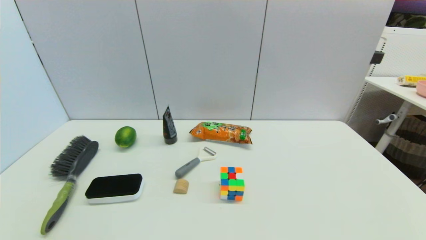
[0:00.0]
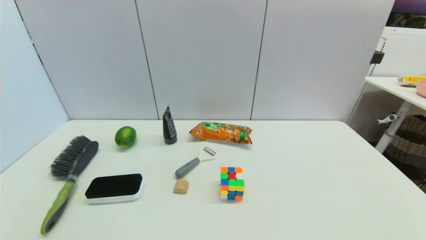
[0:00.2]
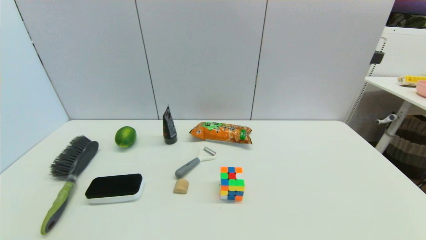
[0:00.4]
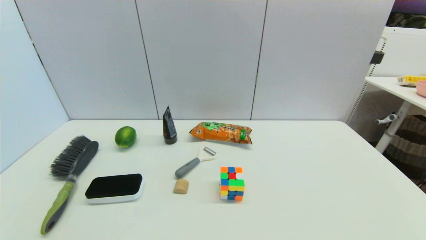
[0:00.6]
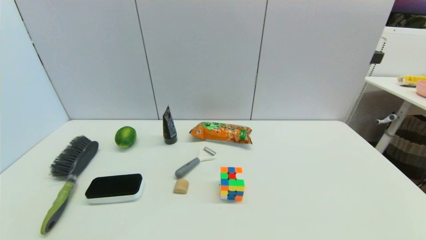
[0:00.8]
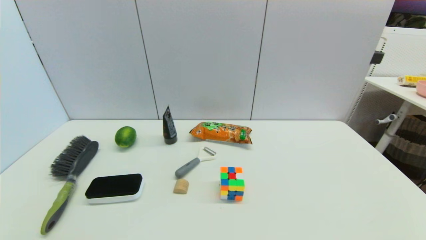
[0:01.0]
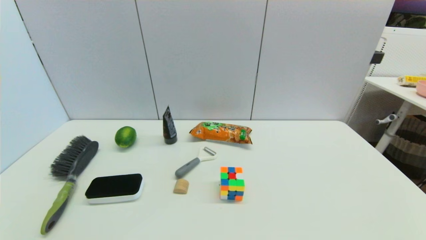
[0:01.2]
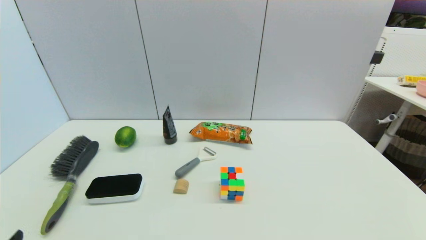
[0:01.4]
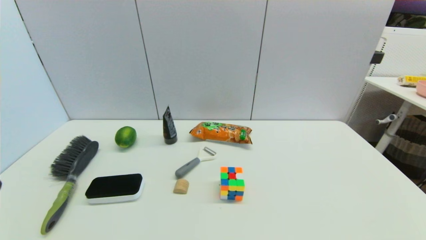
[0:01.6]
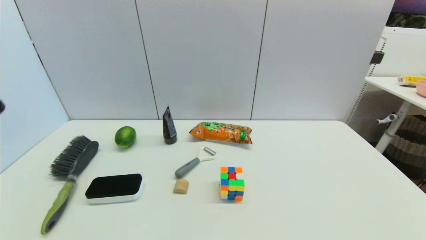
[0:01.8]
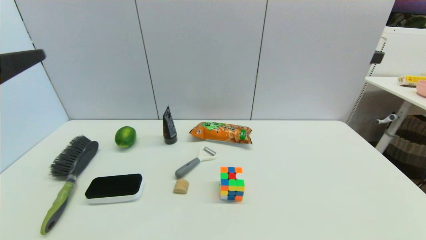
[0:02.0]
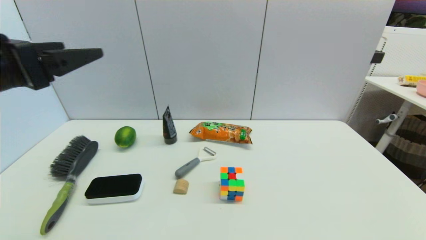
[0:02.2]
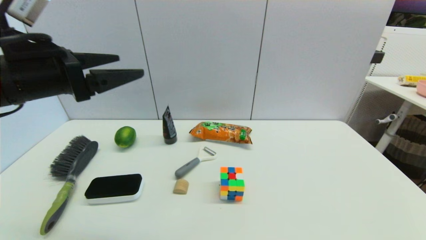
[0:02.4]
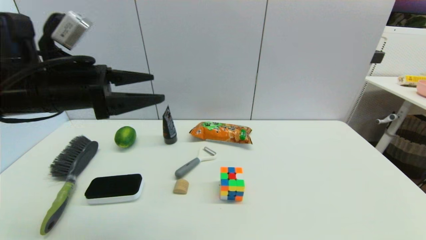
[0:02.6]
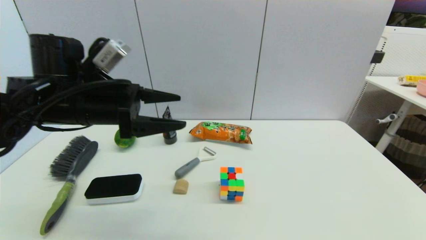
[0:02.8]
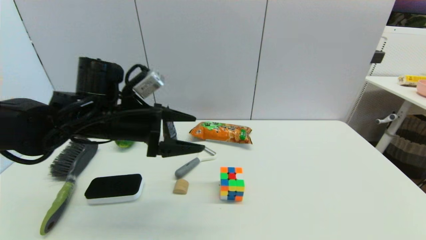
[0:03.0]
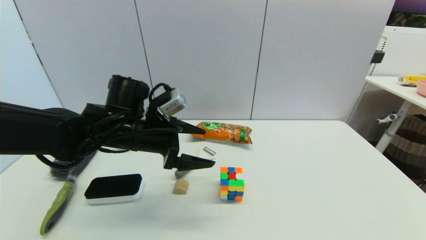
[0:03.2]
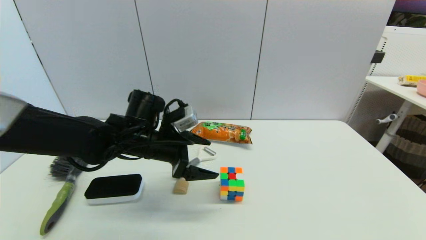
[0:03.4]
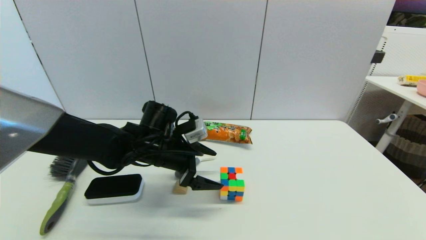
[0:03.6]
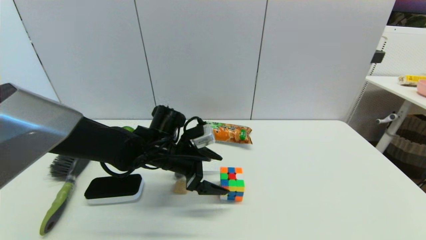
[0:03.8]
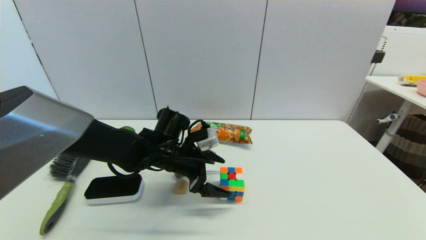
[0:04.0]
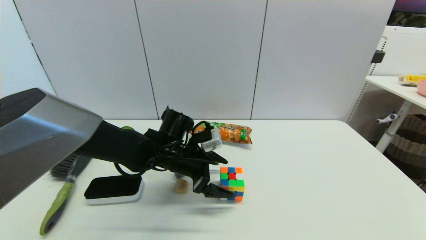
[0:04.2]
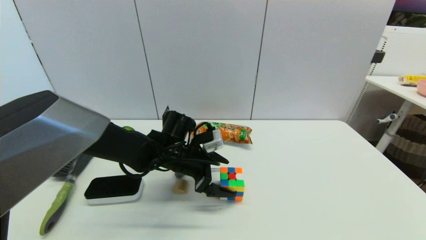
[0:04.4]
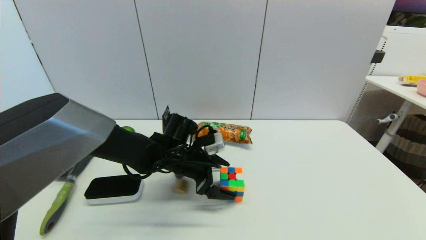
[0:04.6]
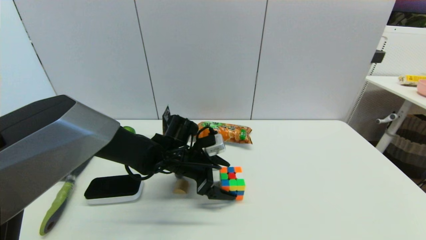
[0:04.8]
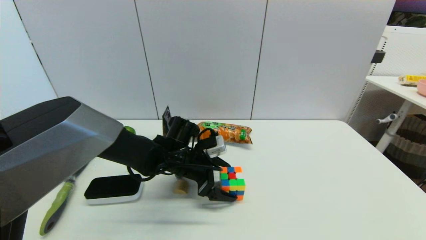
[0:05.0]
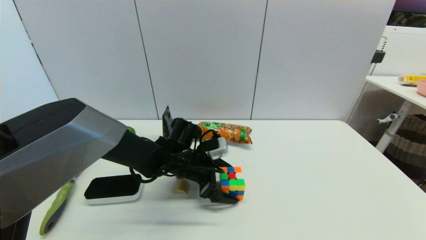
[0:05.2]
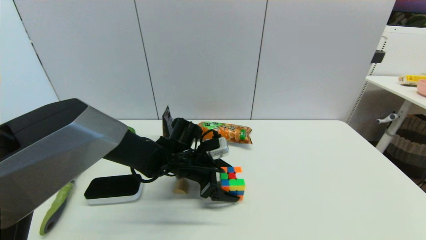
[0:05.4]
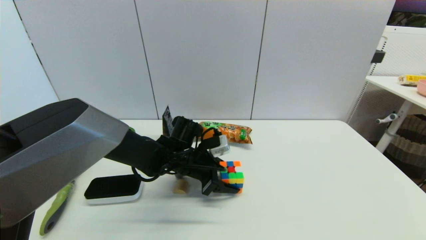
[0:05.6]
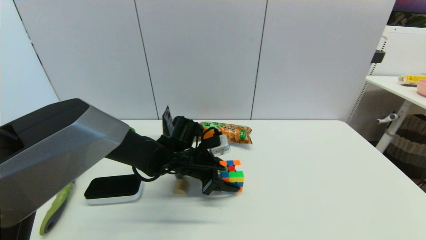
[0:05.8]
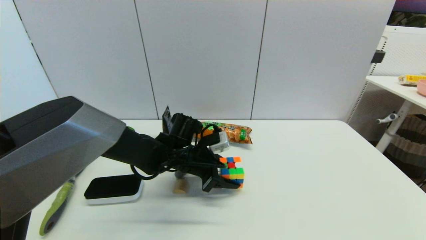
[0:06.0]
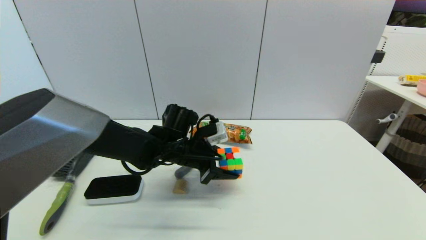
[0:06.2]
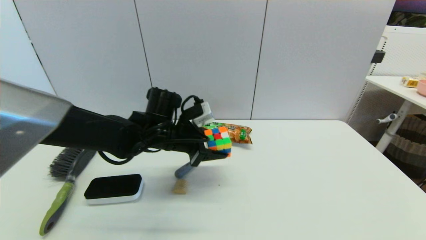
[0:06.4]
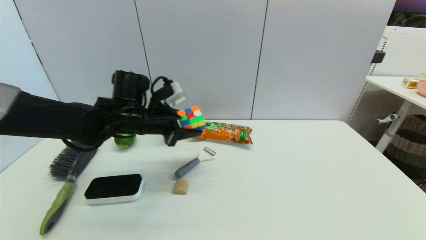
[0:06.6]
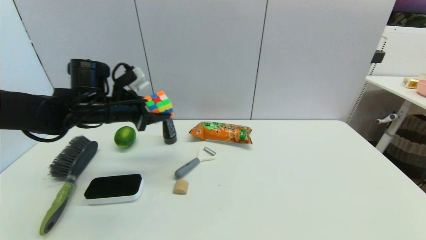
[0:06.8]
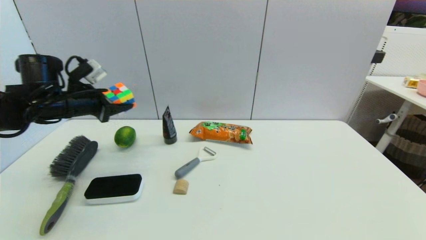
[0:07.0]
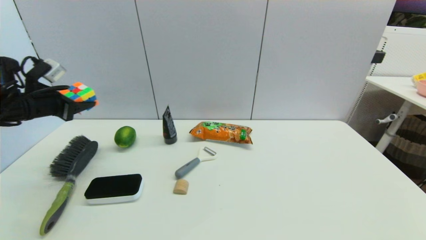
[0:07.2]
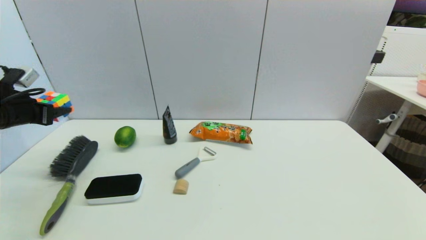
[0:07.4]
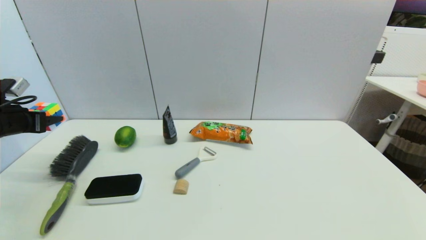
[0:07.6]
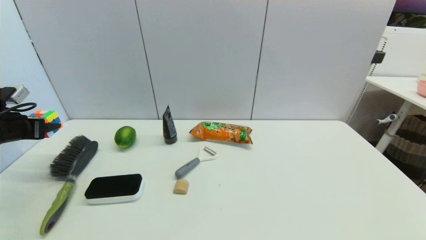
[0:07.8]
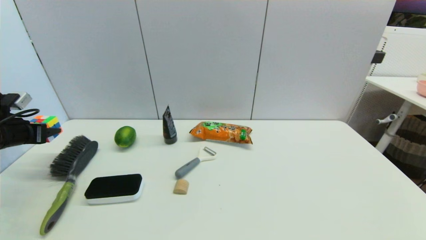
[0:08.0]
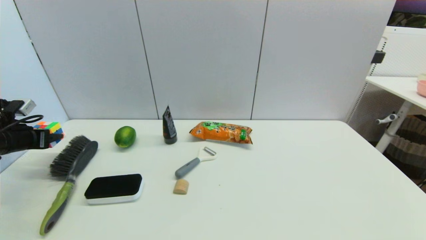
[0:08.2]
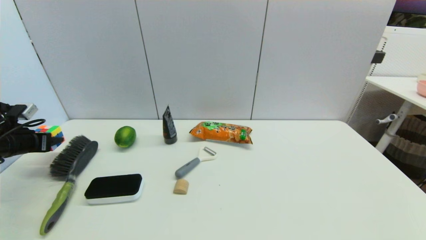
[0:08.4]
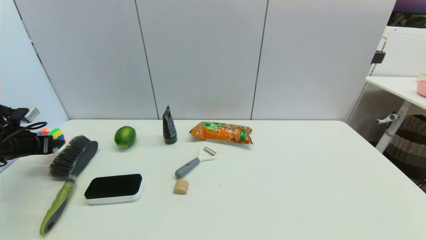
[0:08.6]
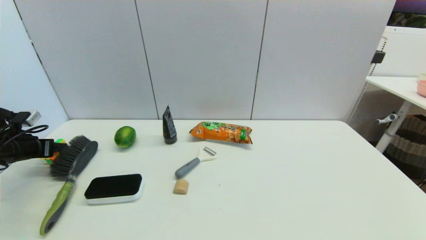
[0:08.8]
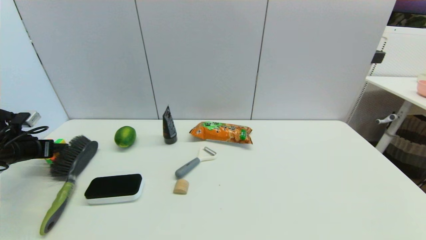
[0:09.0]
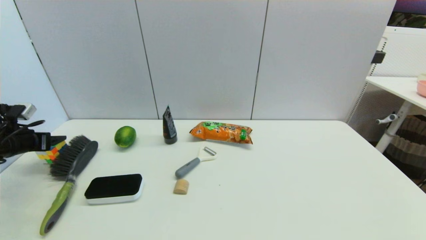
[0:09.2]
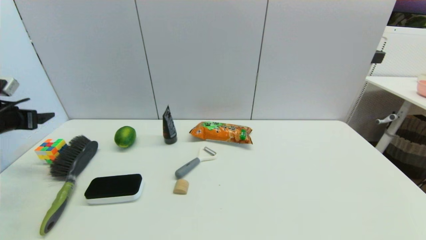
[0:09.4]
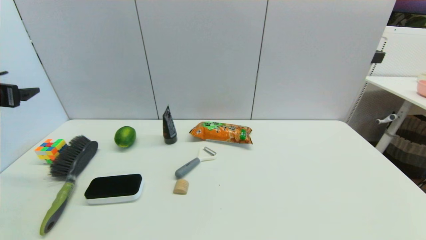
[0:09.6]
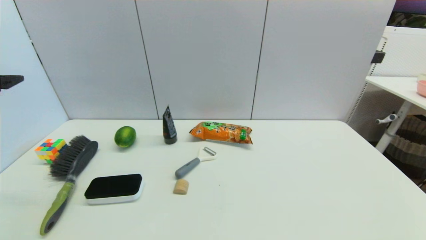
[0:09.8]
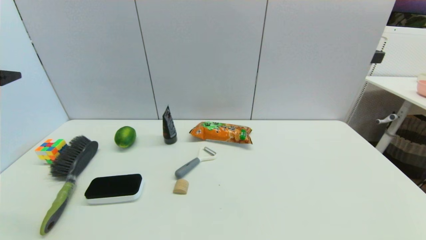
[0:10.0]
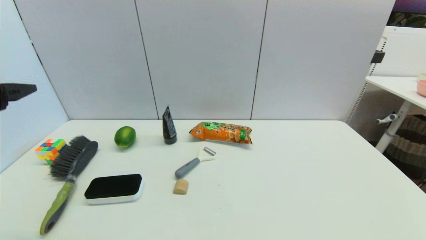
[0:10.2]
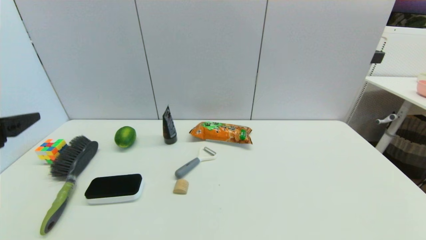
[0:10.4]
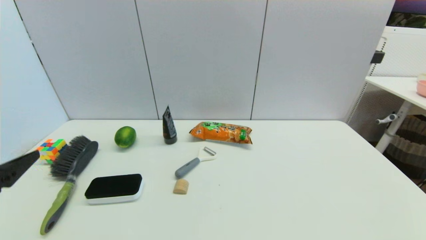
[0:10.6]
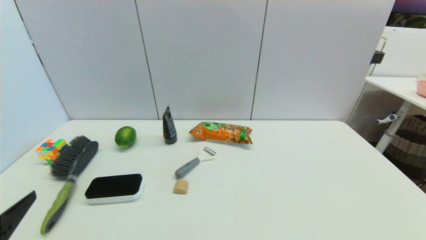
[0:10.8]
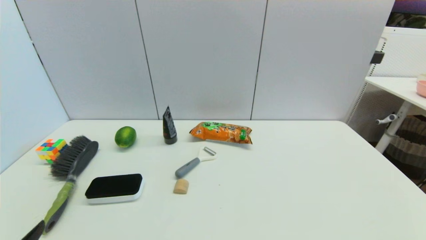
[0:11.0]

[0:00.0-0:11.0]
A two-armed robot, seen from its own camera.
Step, 0:01.4 to 0:05.6: Grasp the magic cube with left gripper.
Step, 0:06.0 to 0:09.2: Place the magic cube on the table with left gripper.
0:01.6 to 0:03.2: The left gripper travels forward and to the right by approximately 30 cm.
0:03.2 to 0:04.8: The left gripper shifts some 10 cm downward and to the right.
0:04.8 to 0:06.2: The left gripper closes up.
0:06.2 to 0:07.8: The left gripper is displaced to the left by about 40 cm.
0:07.8 to 0:09.4: The left gripper goes downward and returns, approximately 5 cm each way, and opens up.
0:09.4 to 0:11.0: The left gripper shifts about 35 cm backward and to the right.

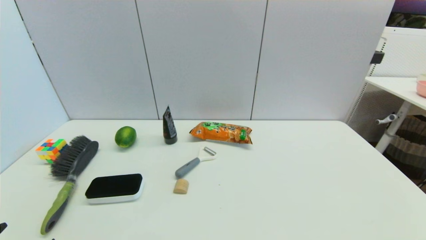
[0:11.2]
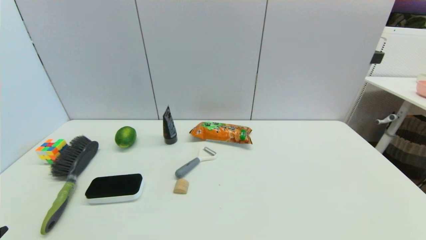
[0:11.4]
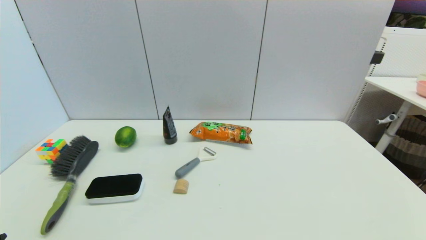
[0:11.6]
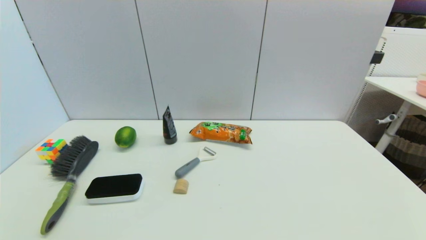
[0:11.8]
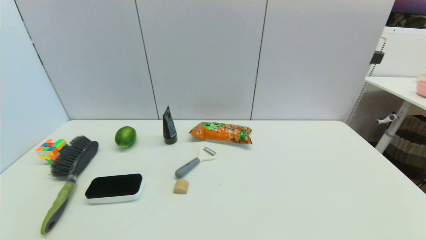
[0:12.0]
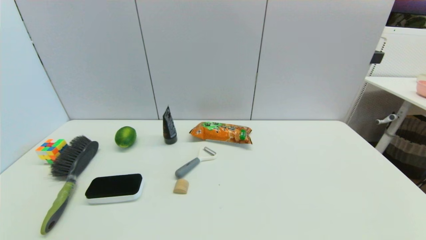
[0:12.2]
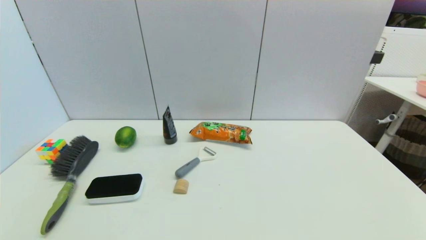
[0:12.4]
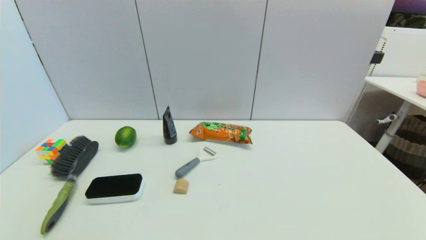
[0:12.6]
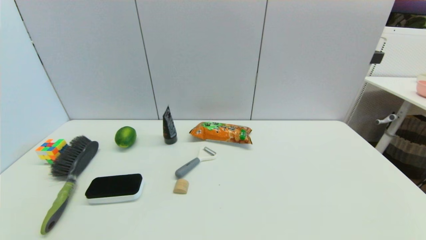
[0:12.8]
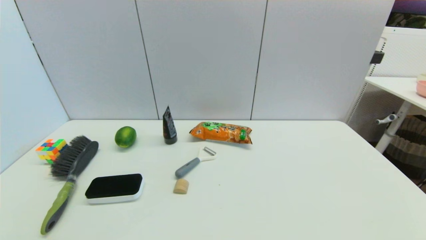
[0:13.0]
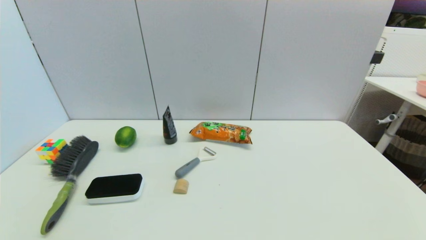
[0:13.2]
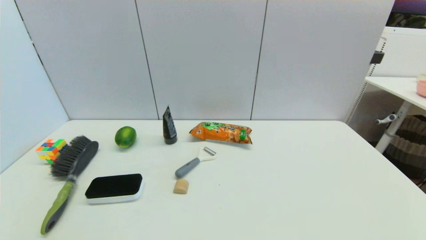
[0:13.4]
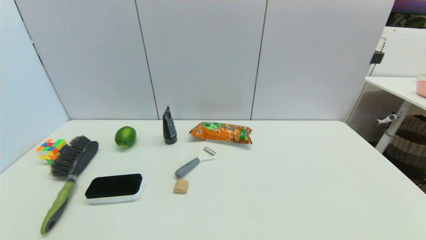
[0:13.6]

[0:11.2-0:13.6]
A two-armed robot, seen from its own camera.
0:12.4 to 0:13.6: Neither gripper changes place.
